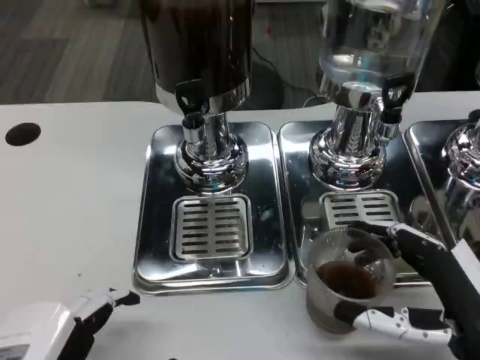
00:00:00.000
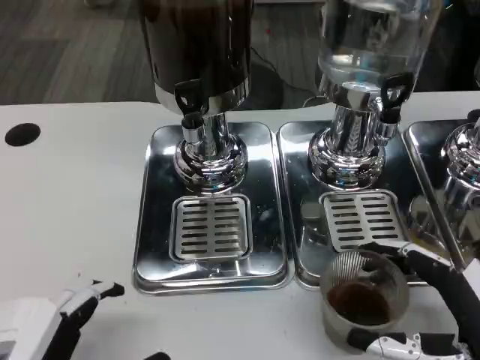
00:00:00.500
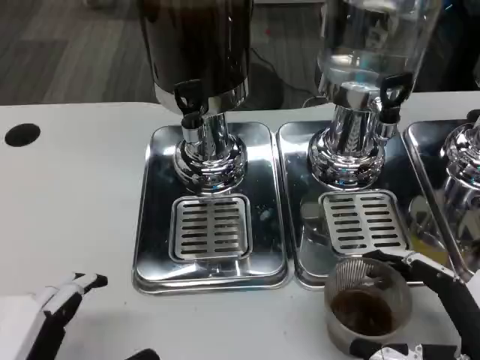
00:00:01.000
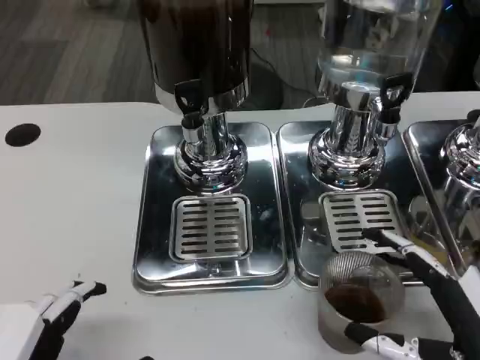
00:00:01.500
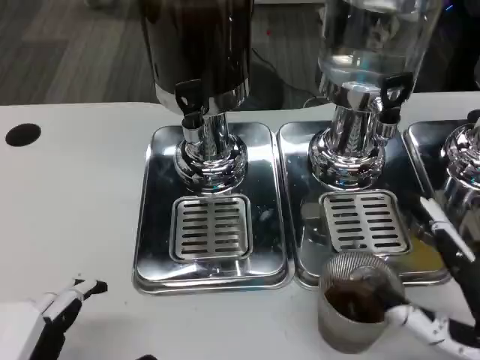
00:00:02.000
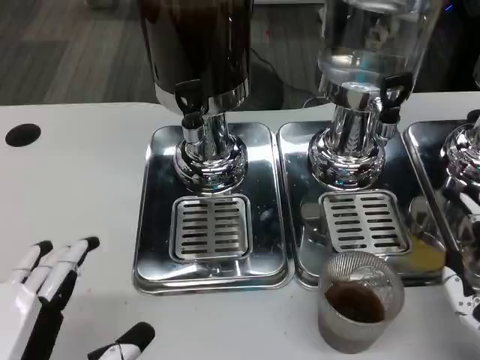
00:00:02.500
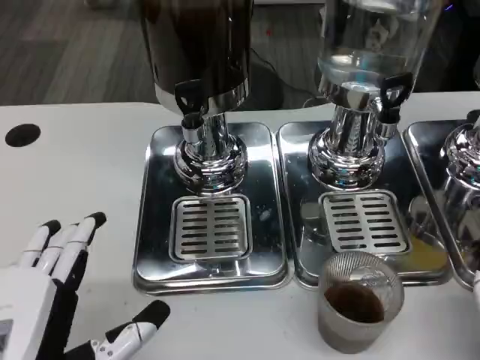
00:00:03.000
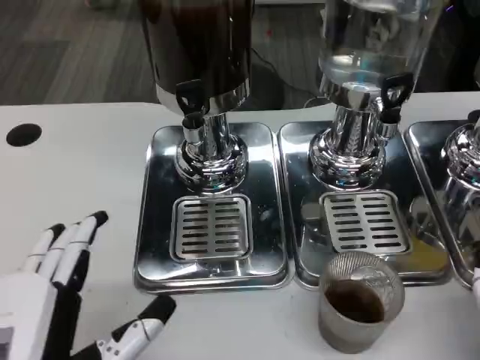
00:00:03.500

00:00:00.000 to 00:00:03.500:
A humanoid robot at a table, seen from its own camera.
Task of the whole recording: Grasp the cup under the faucet to collect the drink, then remove the cup.
00:00:00.000 to 00:00:02.000: There are only small adjustments of the hands.

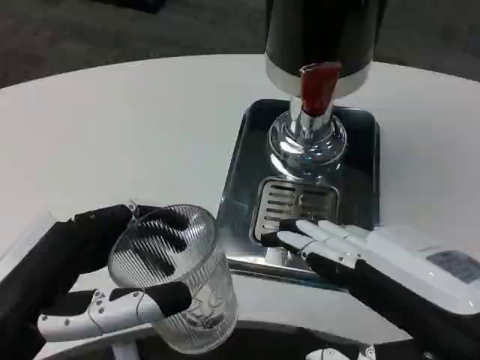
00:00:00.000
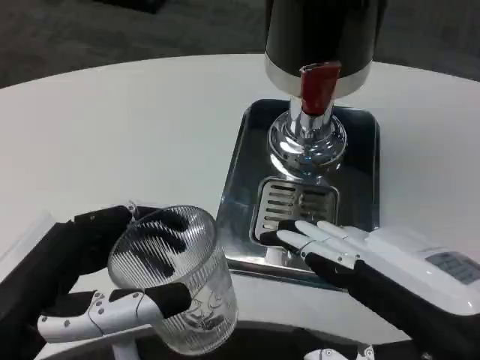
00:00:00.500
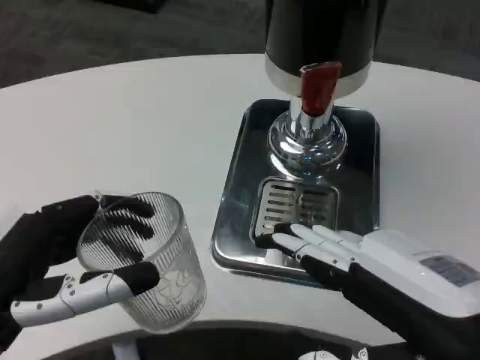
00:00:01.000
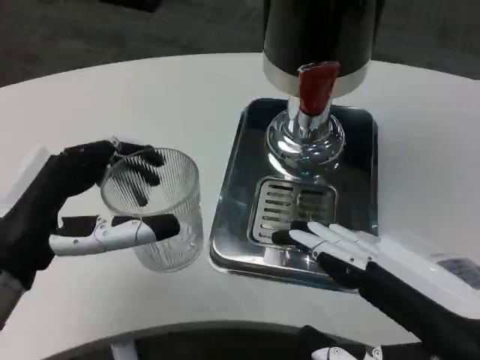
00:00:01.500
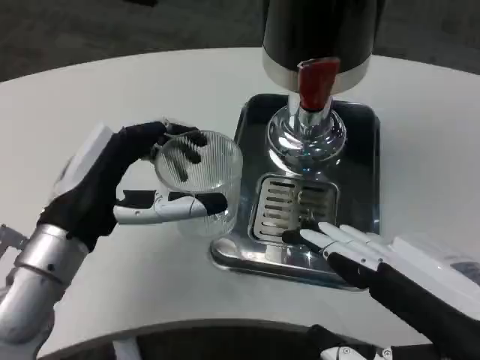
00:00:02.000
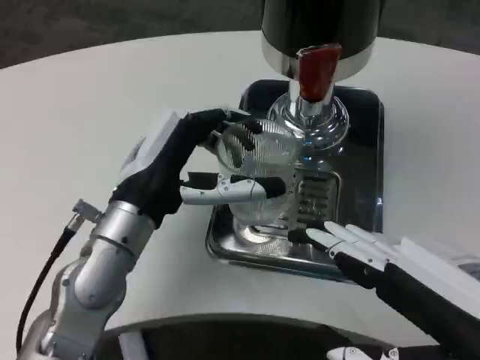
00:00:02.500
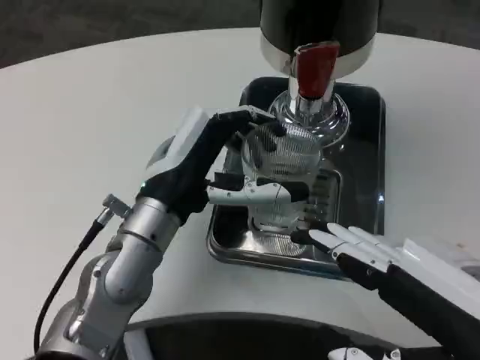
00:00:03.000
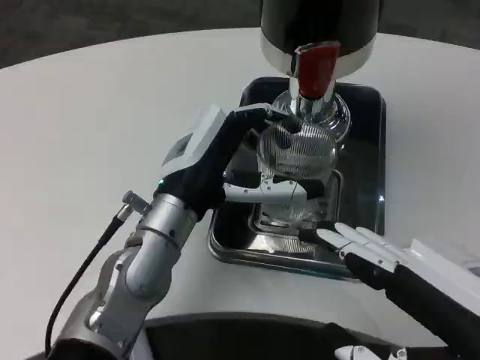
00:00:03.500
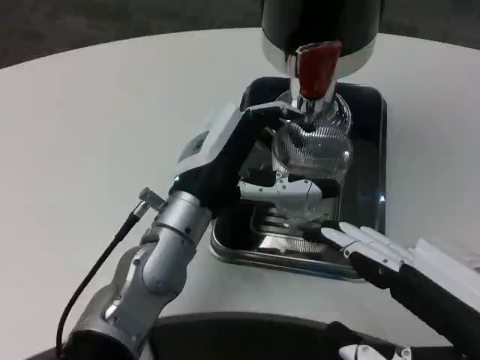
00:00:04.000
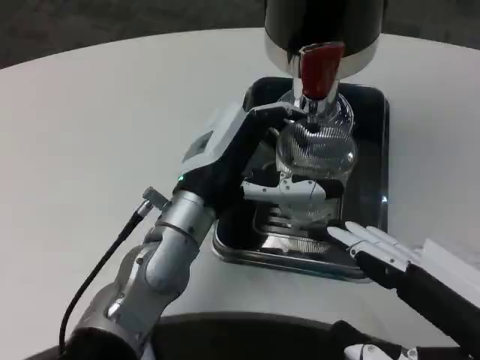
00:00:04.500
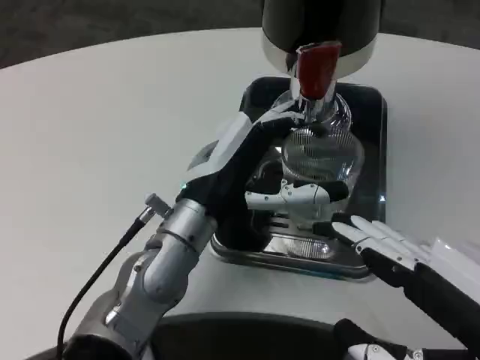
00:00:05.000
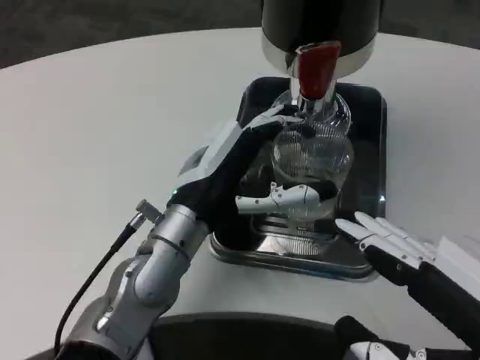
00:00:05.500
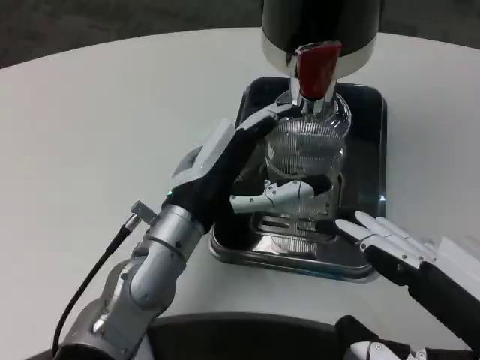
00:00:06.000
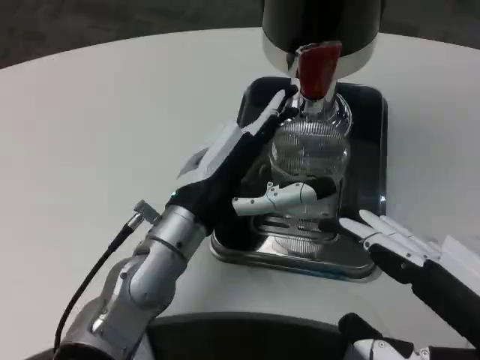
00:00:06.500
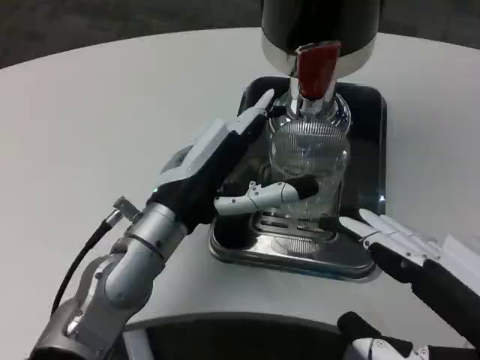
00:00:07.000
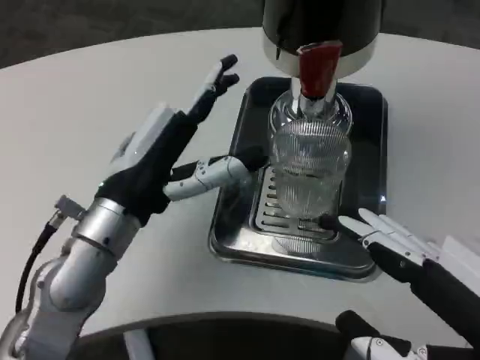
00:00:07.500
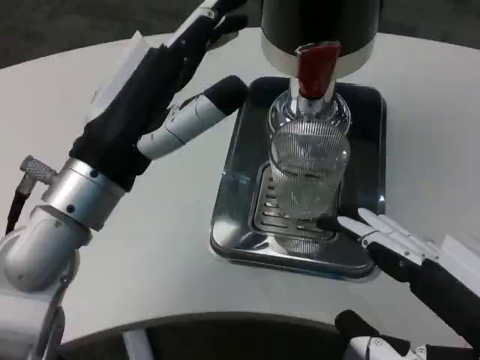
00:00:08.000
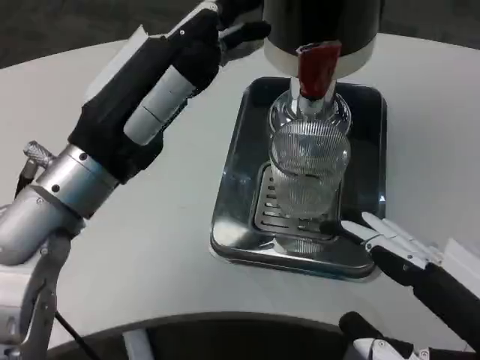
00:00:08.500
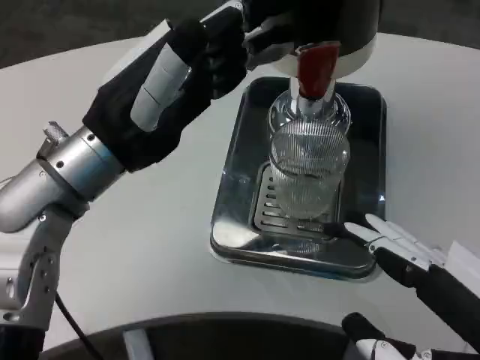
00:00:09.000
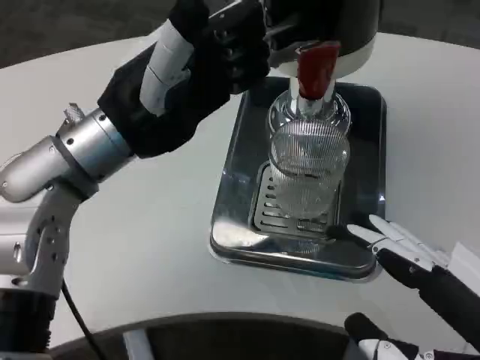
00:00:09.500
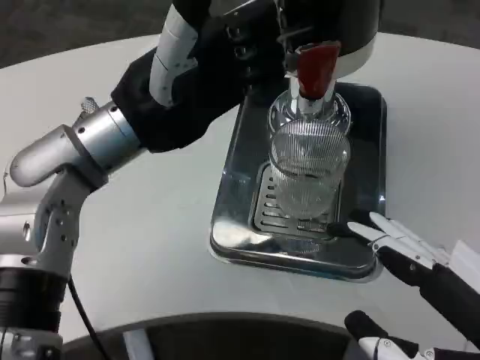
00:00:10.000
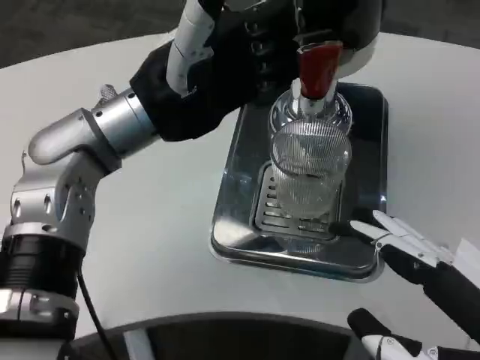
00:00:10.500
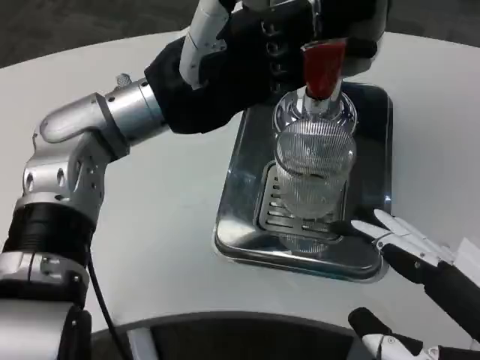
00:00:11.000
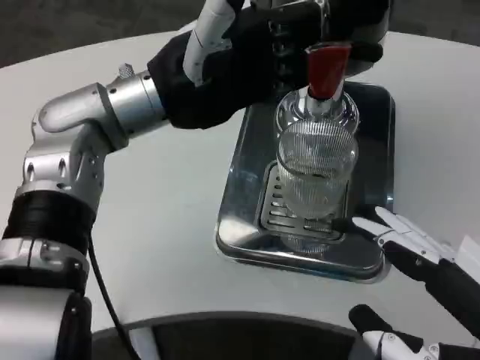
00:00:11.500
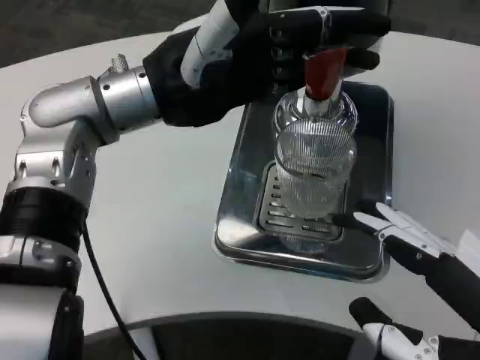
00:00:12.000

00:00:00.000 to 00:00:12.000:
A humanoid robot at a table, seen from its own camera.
Task of the whole recording: Grasp the cup under the faucet to collect the drink, then remove the cup.
00:00:00.000 to 00:00:02.000: The left hand is displaced forward by roughly 15 cm.
00:00:02.000 to 00:00:04.000: The left hand is displaced to the right and forward by some 10 cm.
00:00:04.000 to 00:00:06.000: The hands make only small movements.
00:00:06.000 to 00:00:08.000: The left hand moves upward and to the left, roughly 10 cm.
00:00:08.000 to 00:00:10.000: The left hand is displaced forward by some 5 cm.

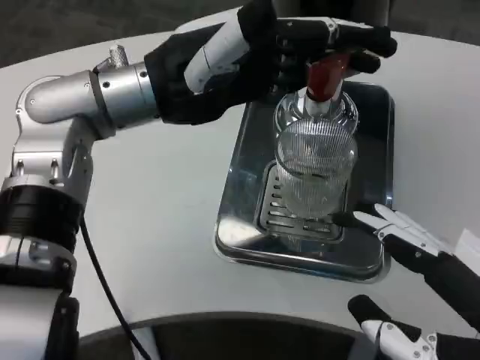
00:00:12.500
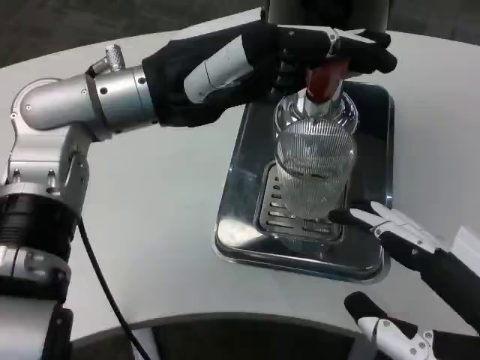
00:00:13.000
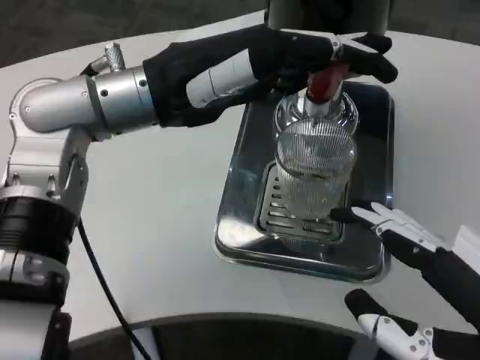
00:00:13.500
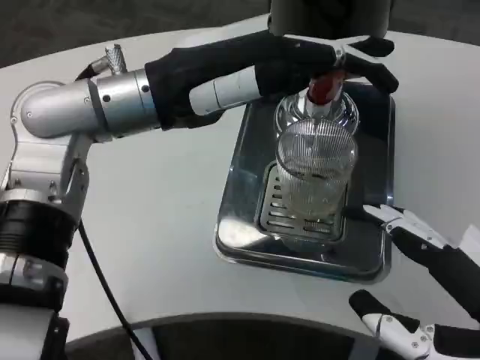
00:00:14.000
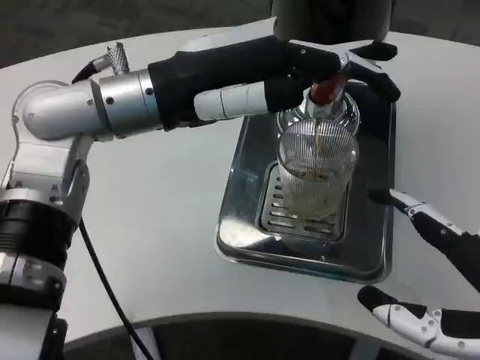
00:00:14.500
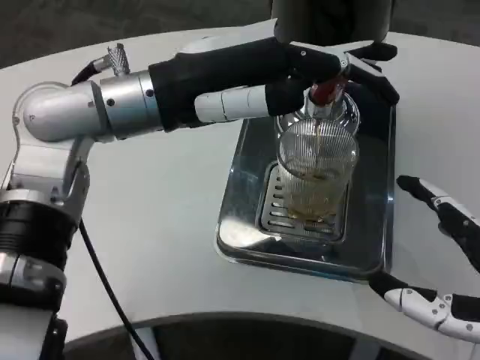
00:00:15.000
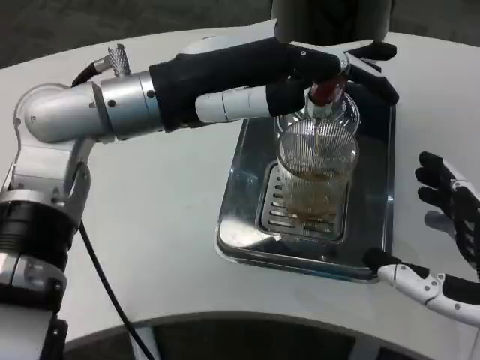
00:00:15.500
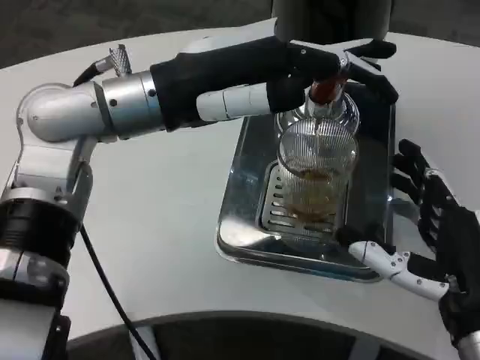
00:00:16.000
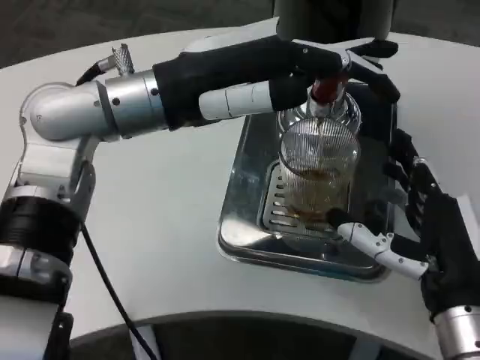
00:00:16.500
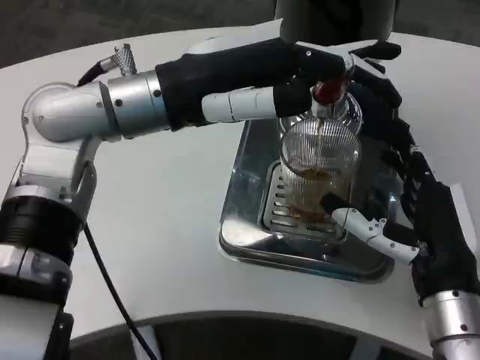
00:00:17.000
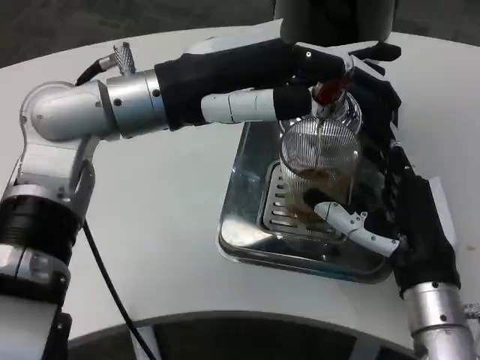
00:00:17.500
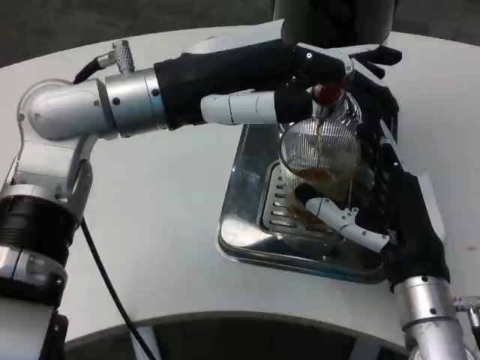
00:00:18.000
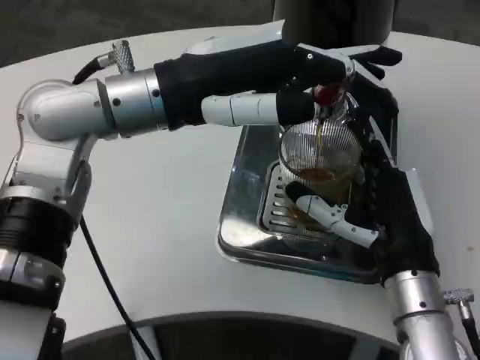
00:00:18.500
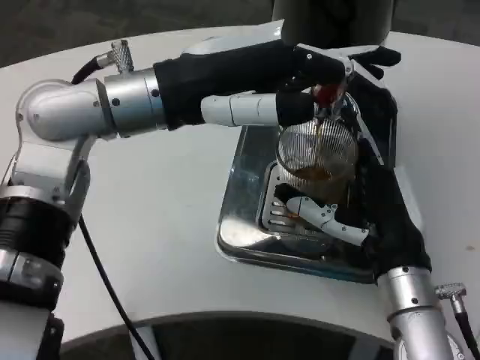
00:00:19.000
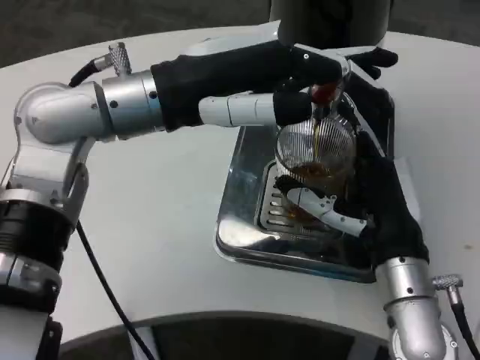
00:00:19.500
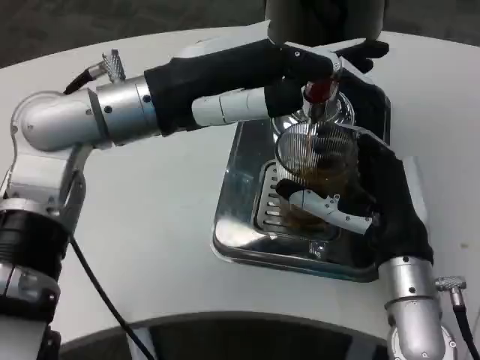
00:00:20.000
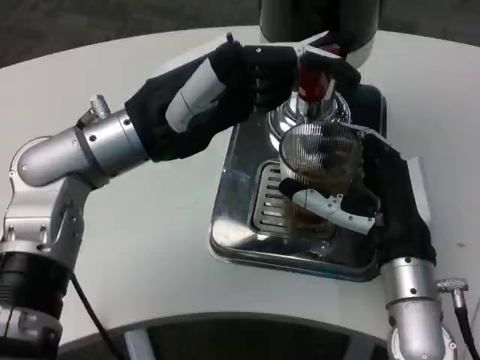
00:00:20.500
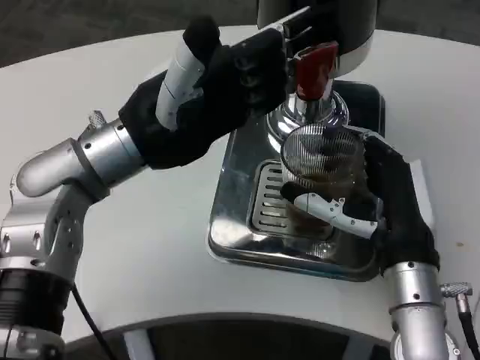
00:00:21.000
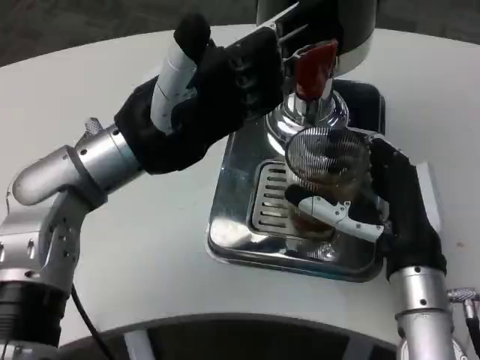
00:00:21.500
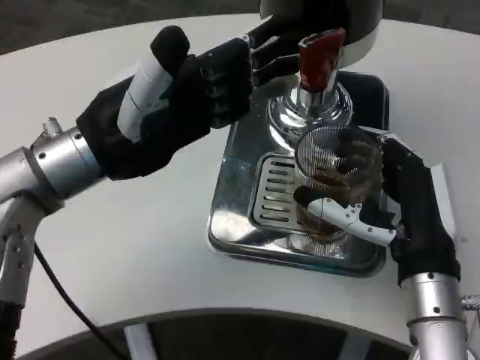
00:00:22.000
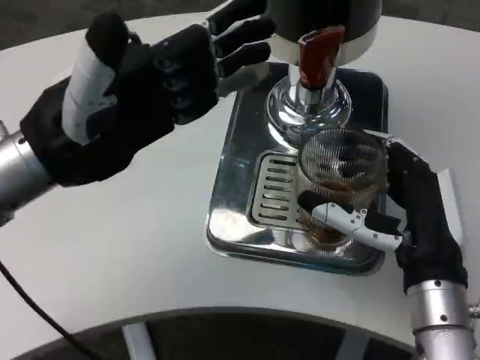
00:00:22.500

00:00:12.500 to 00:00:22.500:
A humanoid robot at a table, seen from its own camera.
Task of the whole recording: Grasp the cup under the faucet to collect the drink, then remove the cup.
00:00:14.500 to 00:00:16.500: The right hand shifts approximately 15 cm forward and downward.
00:00:16.500 to 00:00:18.500: The right hand ends up approximately 5 cm from where it was.
00:00:18.500 to 00:00:20.500: The left hand moves downward, some 5 cm.
00:00:20.500 to 00:00:22.500: The left hand goes roughly 10 cm backward and to the left.
